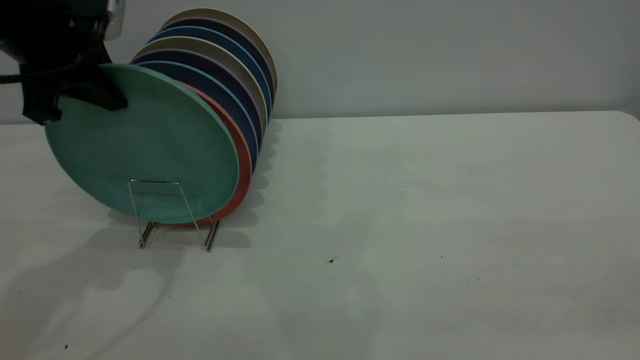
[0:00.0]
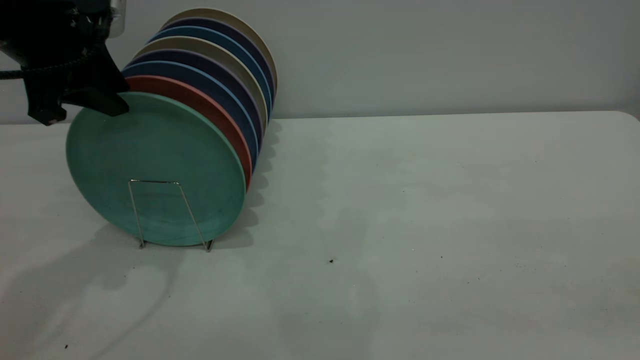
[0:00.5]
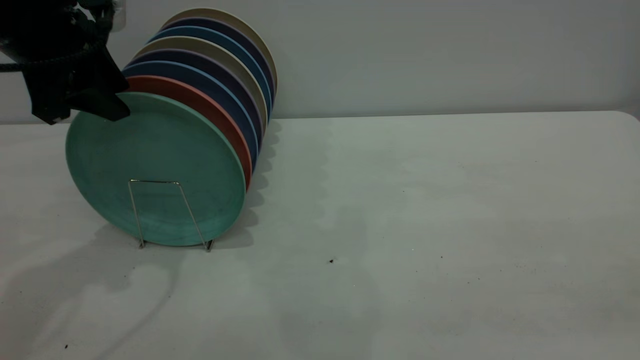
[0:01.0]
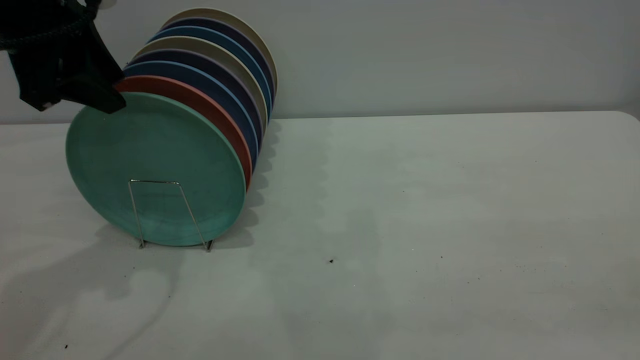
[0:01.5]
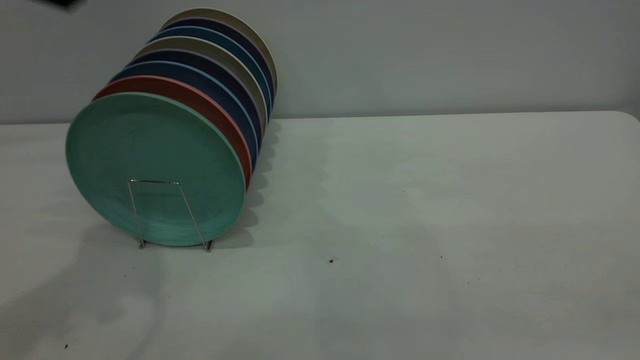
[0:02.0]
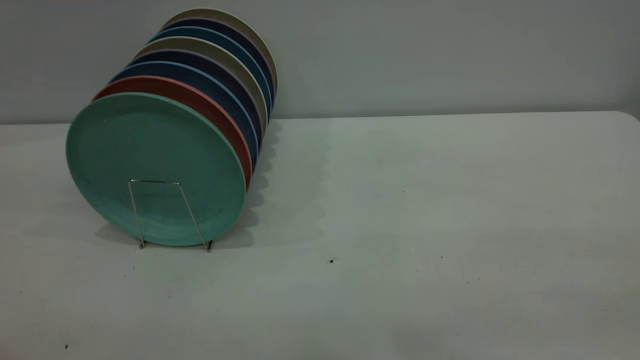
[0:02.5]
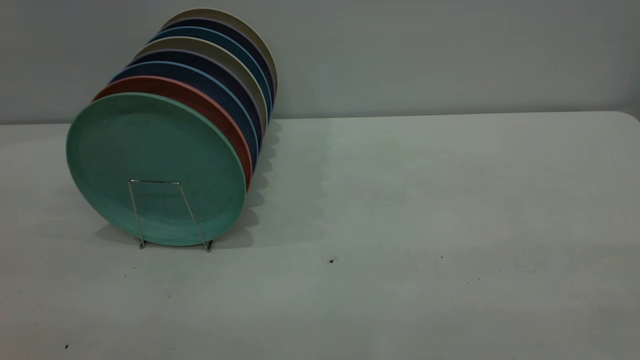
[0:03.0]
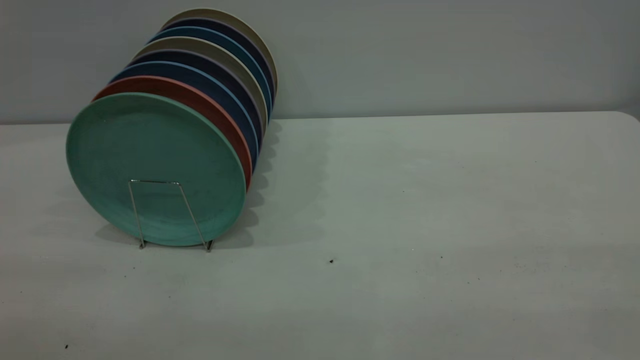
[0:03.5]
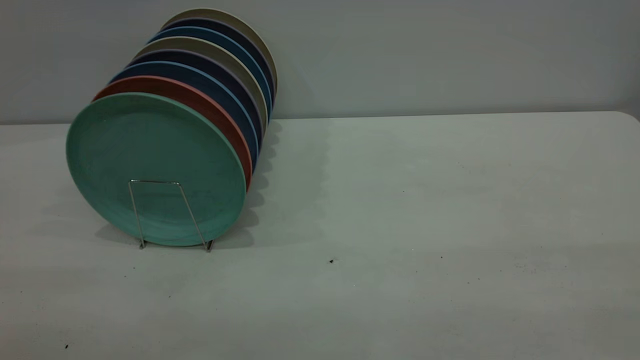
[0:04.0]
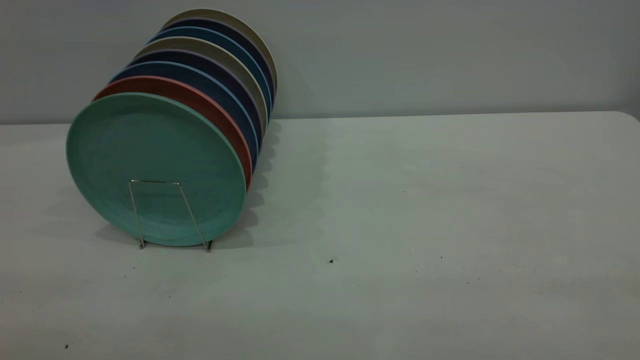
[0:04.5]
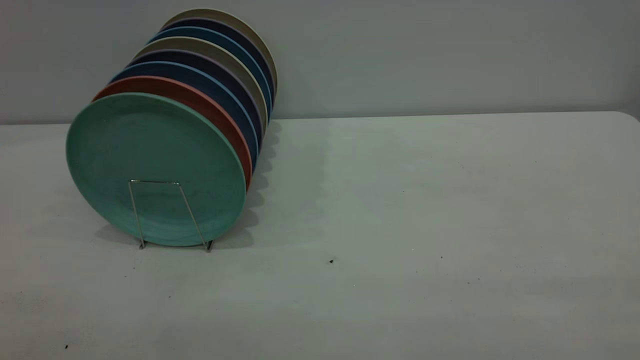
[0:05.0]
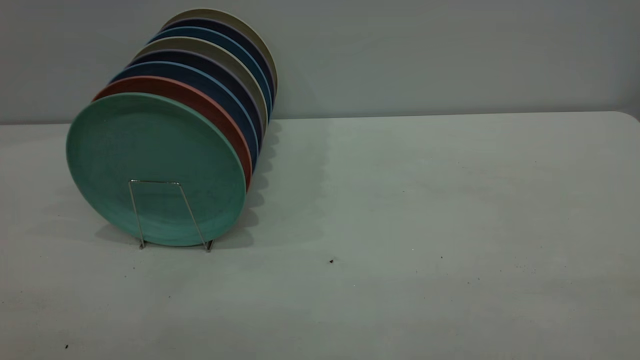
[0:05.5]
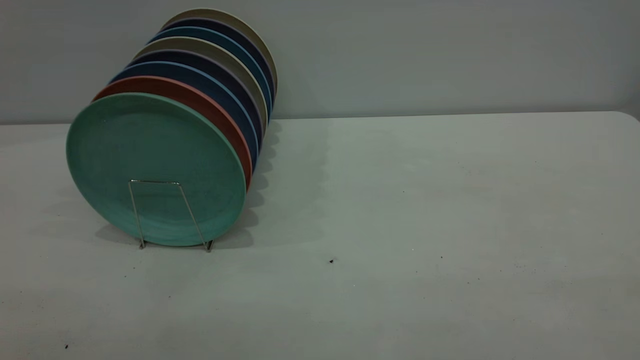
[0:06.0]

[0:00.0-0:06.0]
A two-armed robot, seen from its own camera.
Task of the whole recording: the right gripper grasp the green plate, the right gripper pass the green plate to the left gripper, and the left gripper place the green plate on the plate rack.
0:00.0 to 0:02.0: The left gripper heads upward and backward, covering some 15 cm, and opens its fingers.
